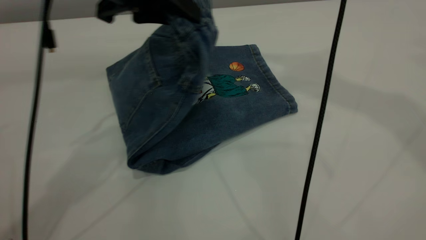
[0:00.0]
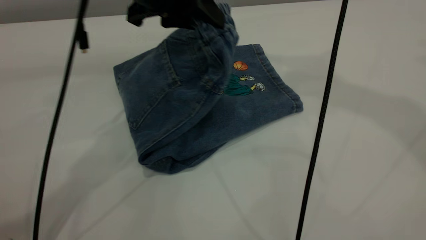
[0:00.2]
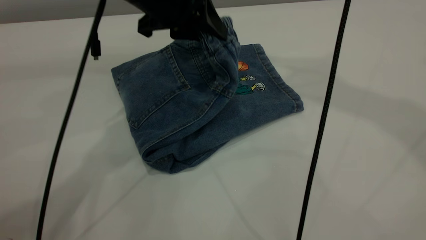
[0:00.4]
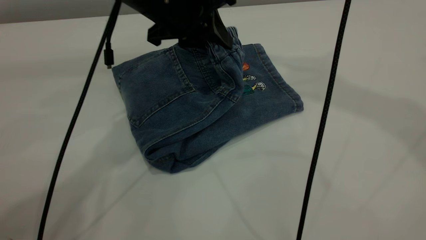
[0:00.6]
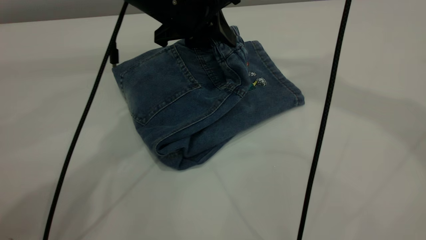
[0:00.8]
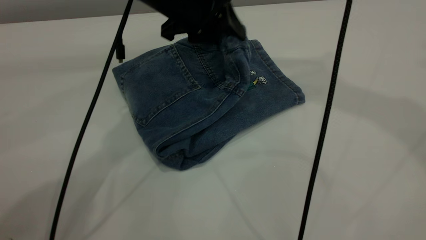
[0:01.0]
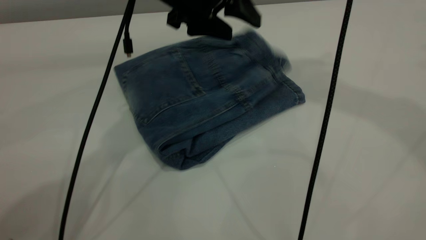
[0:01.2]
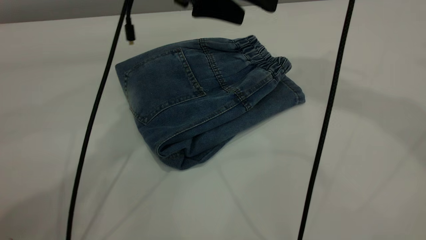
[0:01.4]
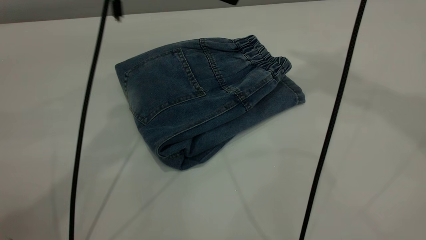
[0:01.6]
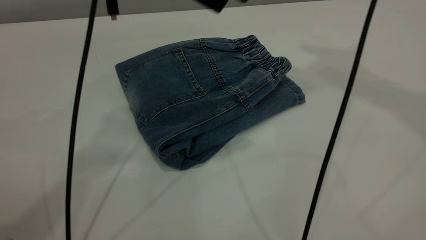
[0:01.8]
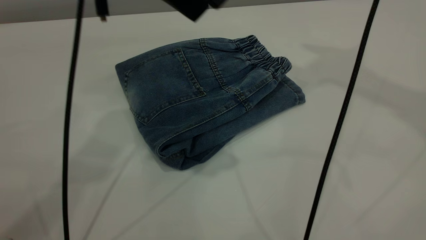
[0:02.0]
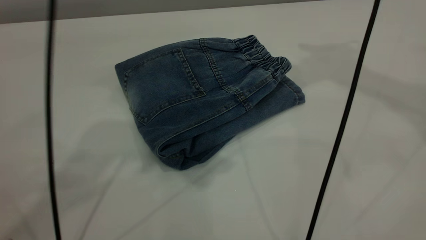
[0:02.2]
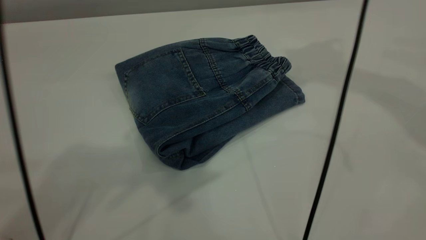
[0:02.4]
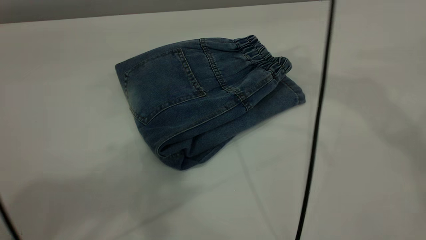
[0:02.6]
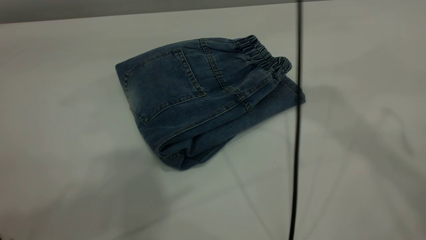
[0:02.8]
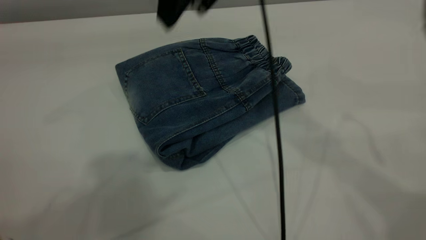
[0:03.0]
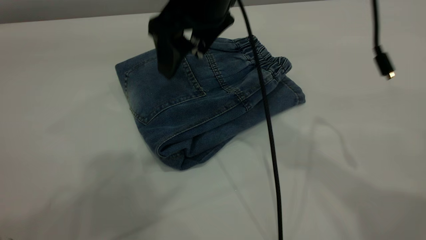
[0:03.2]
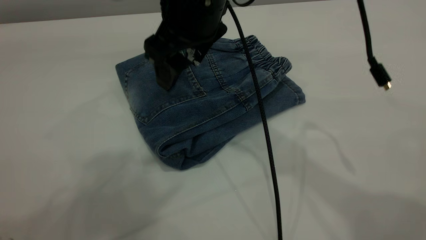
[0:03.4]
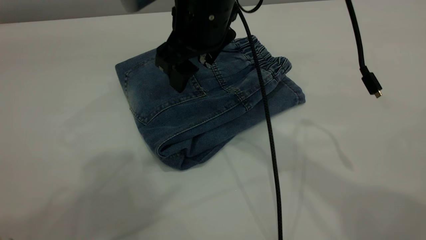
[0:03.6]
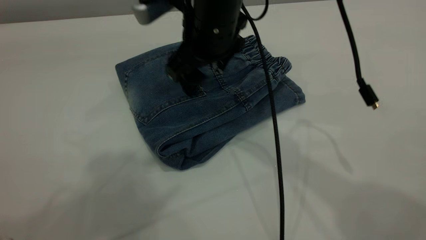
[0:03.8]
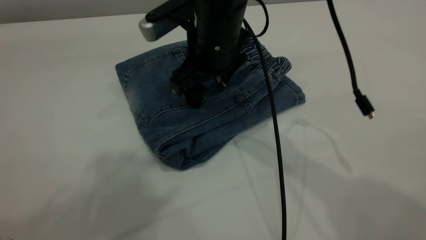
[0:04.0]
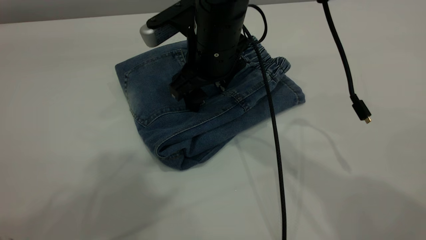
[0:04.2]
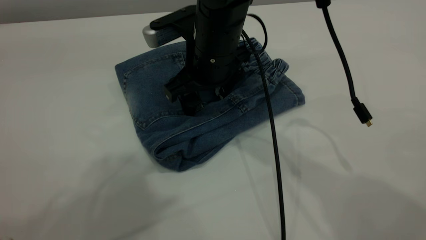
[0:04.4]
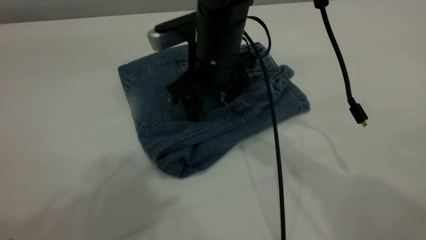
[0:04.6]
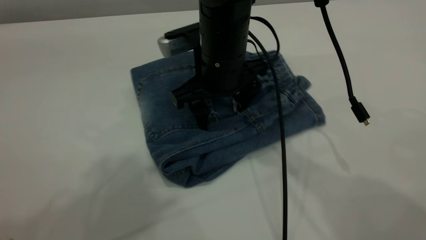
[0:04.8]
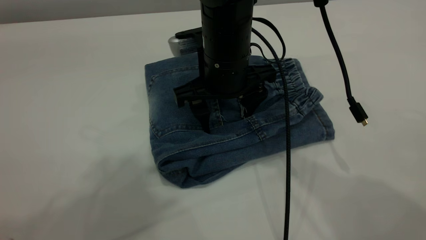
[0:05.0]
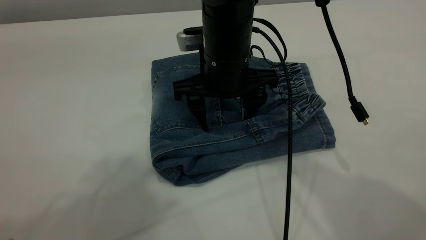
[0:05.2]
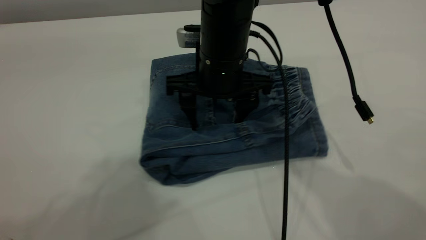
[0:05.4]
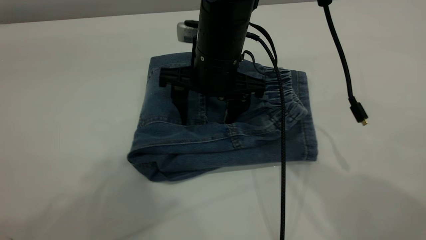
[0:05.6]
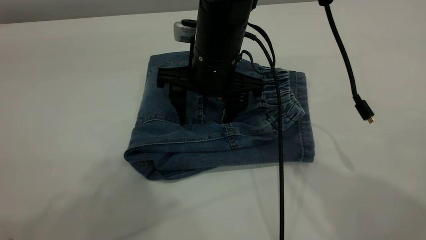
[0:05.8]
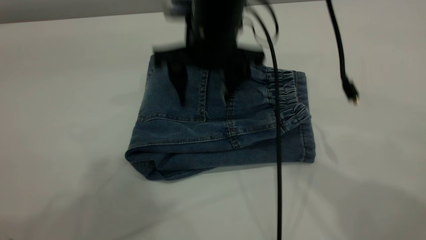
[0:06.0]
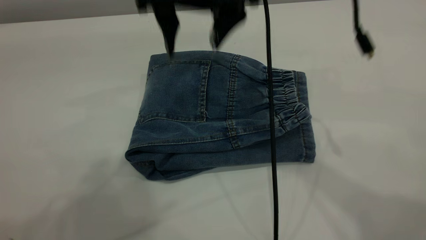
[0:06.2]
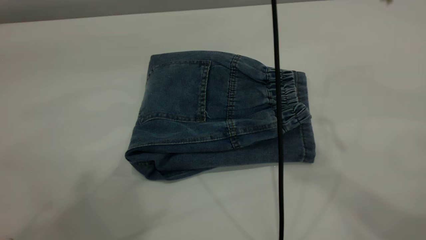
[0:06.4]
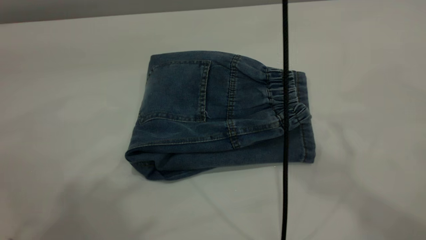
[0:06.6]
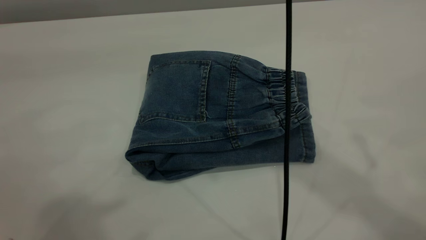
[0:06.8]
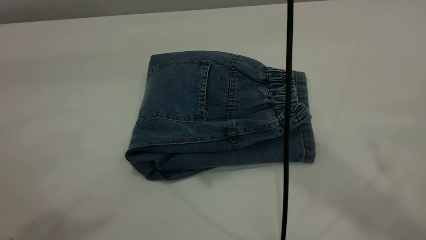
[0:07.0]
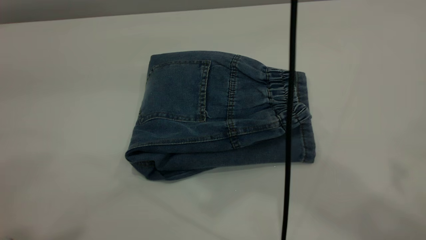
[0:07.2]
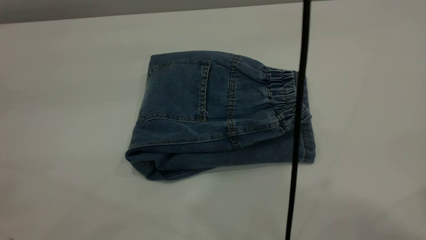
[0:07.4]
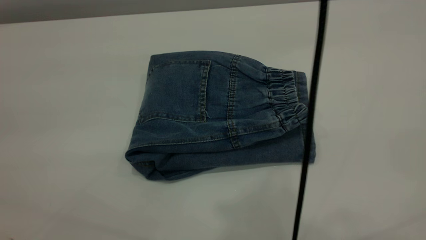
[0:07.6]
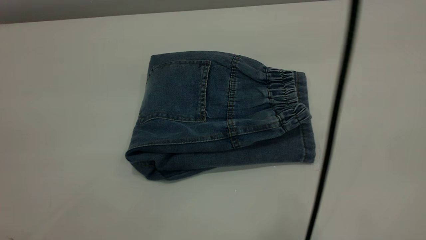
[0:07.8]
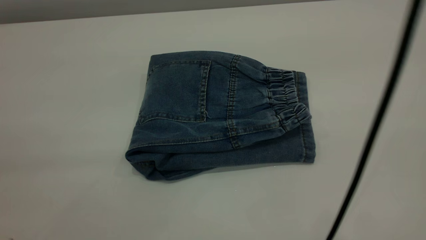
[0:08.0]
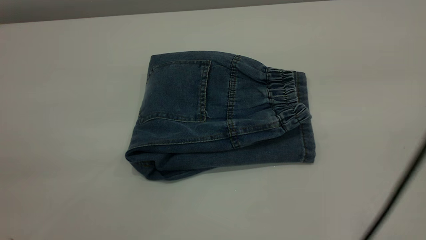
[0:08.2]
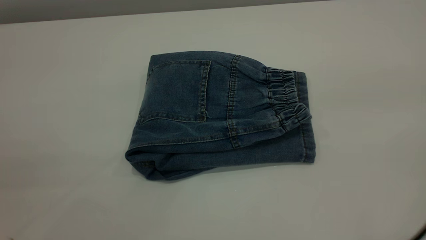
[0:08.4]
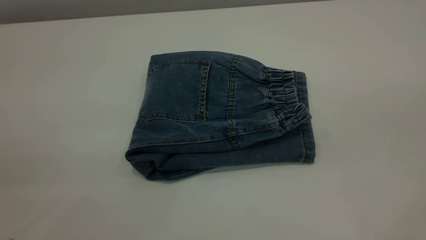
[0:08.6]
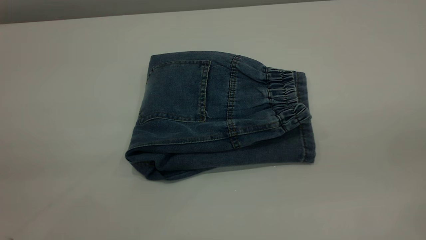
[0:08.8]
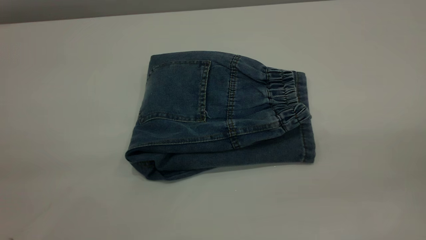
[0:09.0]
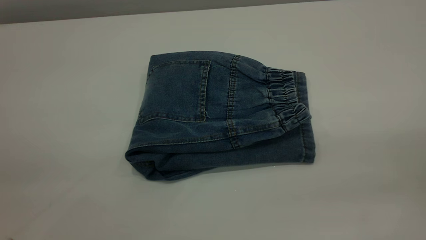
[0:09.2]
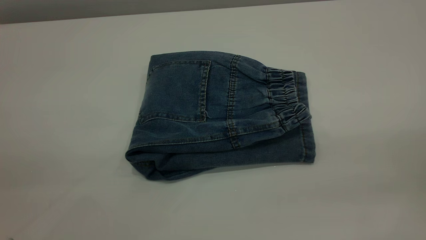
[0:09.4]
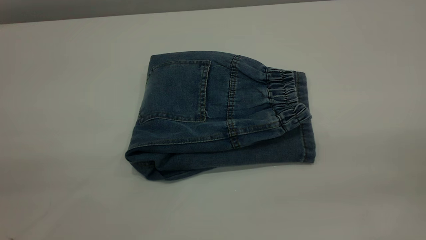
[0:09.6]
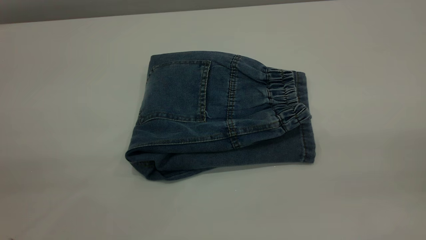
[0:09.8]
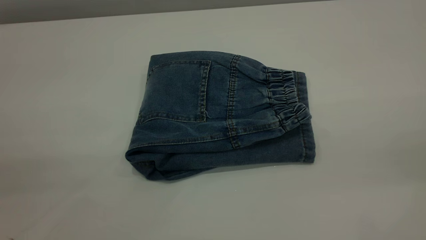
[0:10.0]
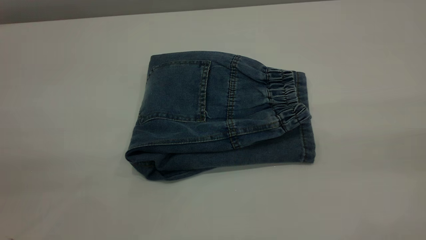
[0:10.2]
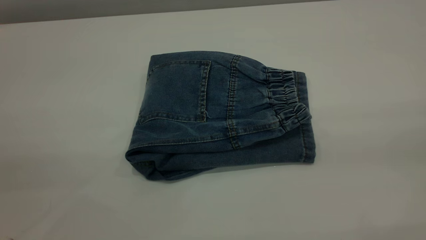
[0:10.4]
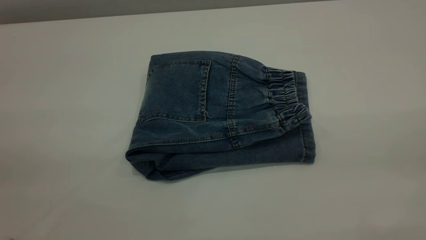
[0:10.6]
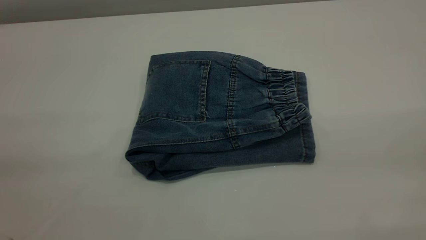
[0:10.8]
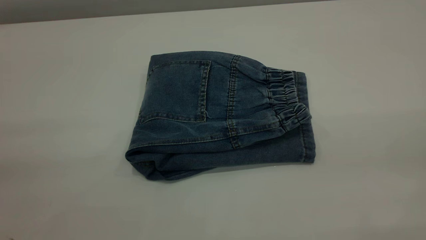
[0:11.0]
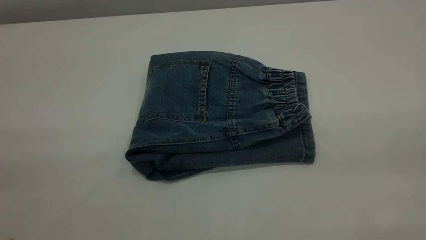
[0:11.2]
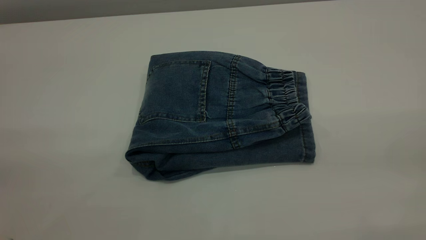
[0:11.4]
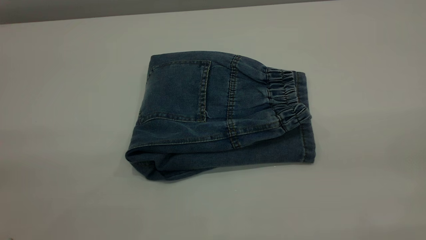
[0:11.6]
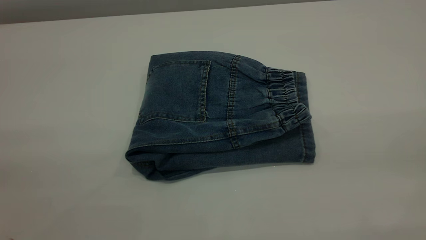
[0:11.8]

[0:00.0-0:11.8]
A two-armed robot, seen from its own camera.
0:00.0 to 0:01.4: The left gripper goes about 5 cm to the right, and opens up.
0:01.4 to 0:03.0: The left gripper heads upward, backward and to the left, covering roughly 35 cm; the right gripper heads downward and to the left, covering about 25 cm.
0:03.0 to 0:04.4: The right gripper shifts about 15 cm downward.
0:04.4 to 0:06.0: The right gripper goes about 5 cm upward.
0:06.0 to 0:07.4: The right gripper heads upward and backward, covering about 40 cm. Meanwhile the left gripper heads backward and to the left, covering some 15 cm.
0:07.4 to 0:08.8: The right gripper goes approximately 30 cm to the right, downward and backward.
